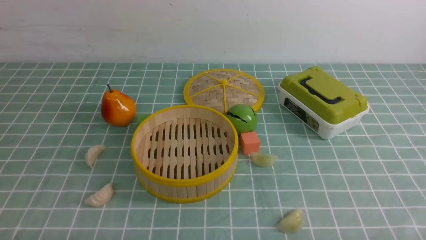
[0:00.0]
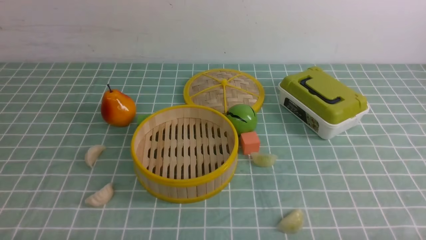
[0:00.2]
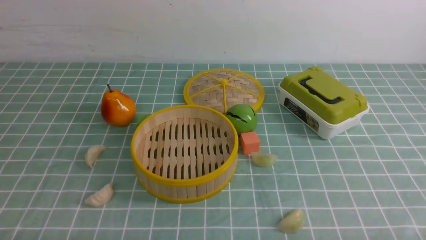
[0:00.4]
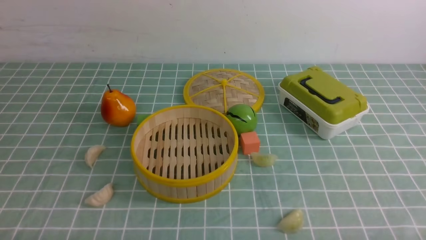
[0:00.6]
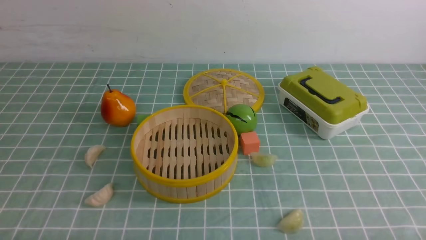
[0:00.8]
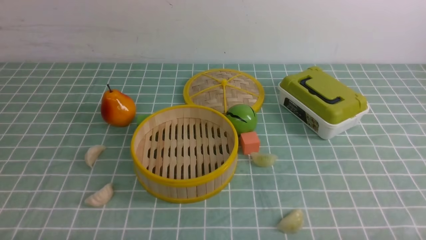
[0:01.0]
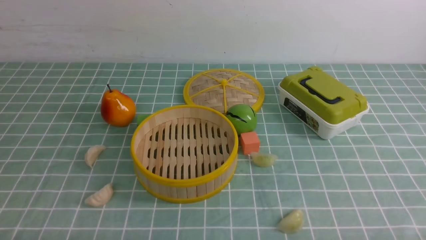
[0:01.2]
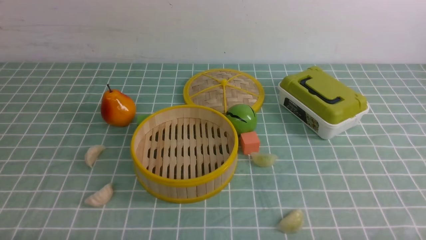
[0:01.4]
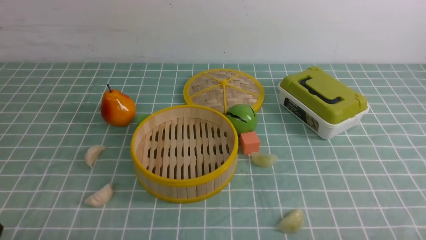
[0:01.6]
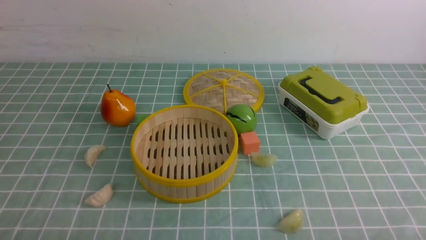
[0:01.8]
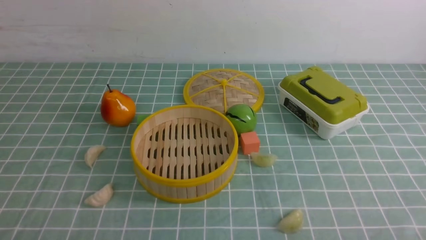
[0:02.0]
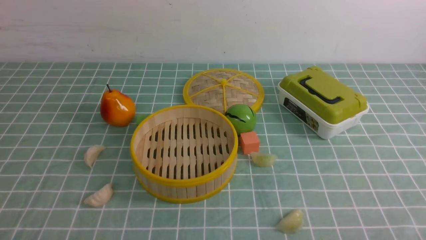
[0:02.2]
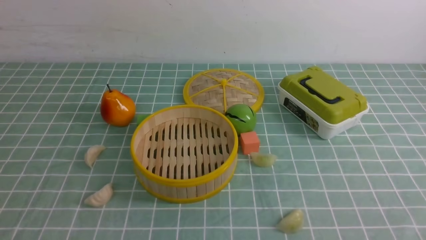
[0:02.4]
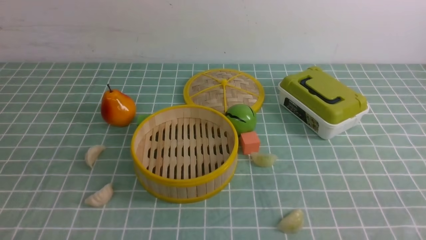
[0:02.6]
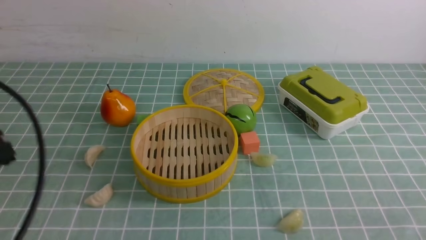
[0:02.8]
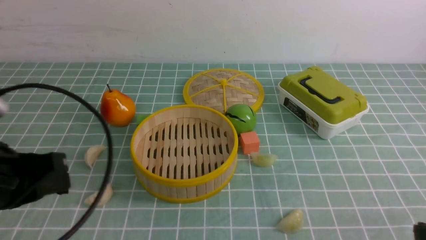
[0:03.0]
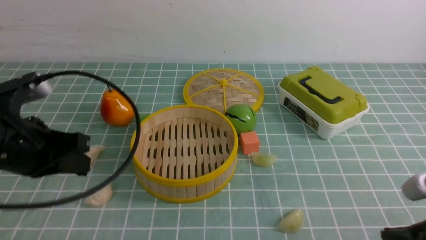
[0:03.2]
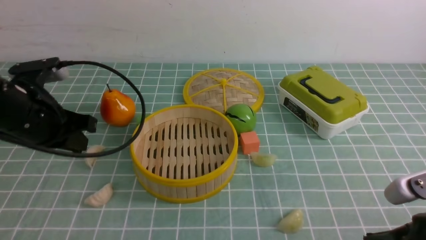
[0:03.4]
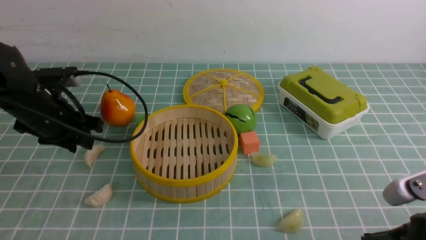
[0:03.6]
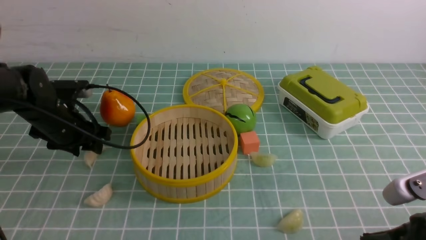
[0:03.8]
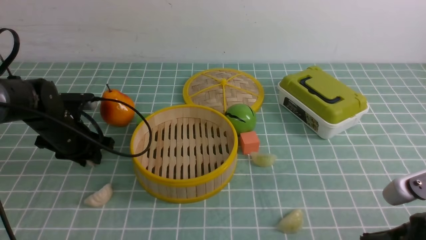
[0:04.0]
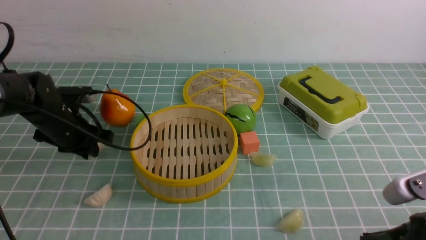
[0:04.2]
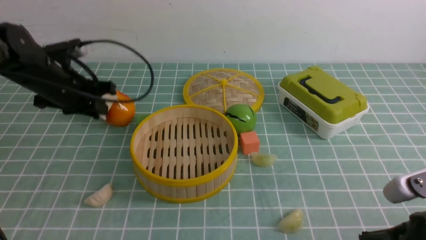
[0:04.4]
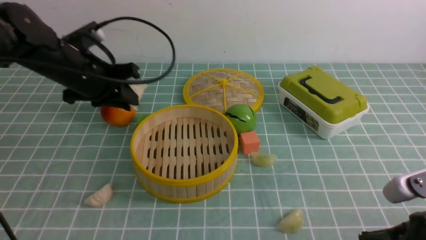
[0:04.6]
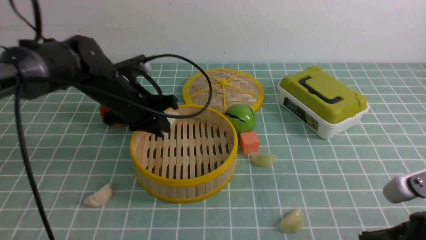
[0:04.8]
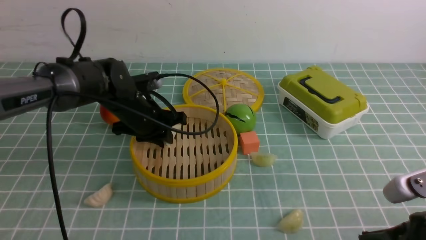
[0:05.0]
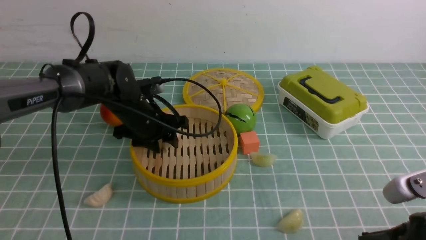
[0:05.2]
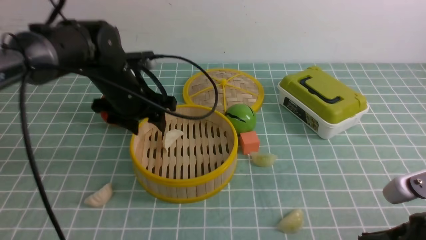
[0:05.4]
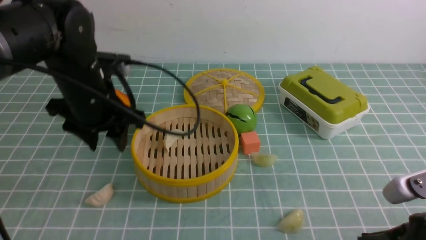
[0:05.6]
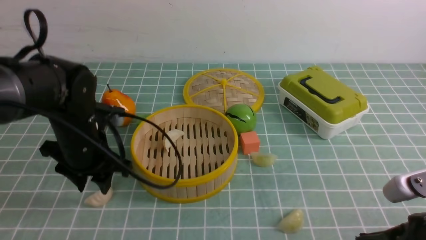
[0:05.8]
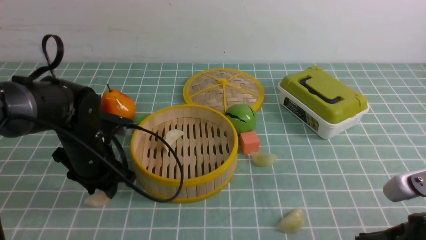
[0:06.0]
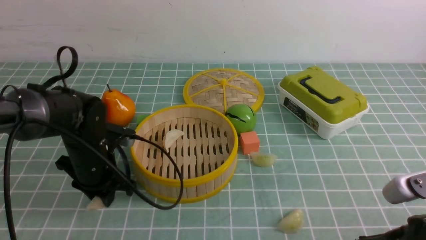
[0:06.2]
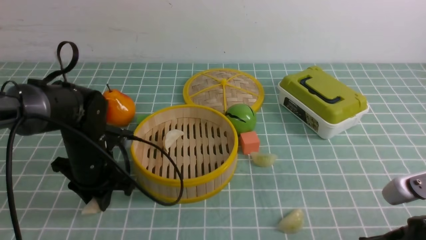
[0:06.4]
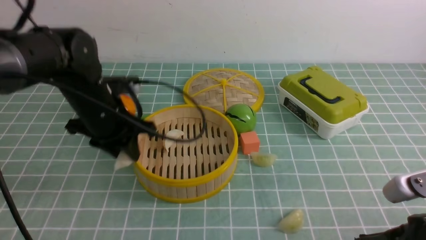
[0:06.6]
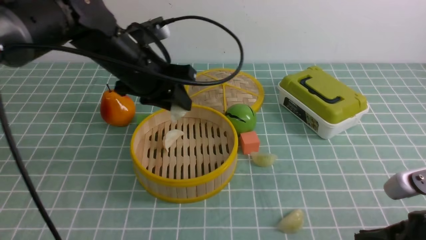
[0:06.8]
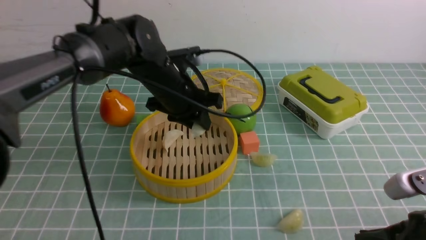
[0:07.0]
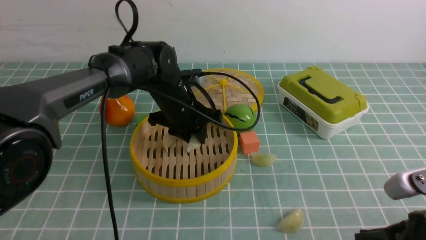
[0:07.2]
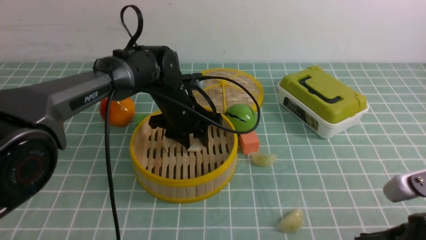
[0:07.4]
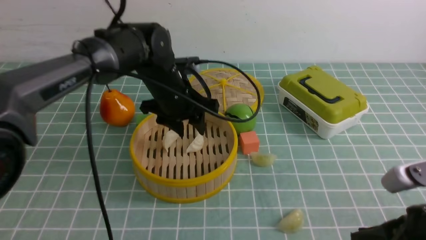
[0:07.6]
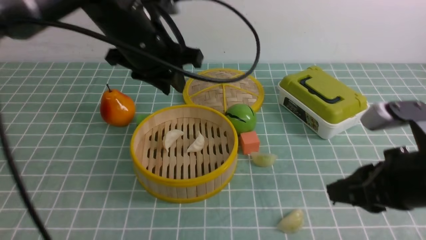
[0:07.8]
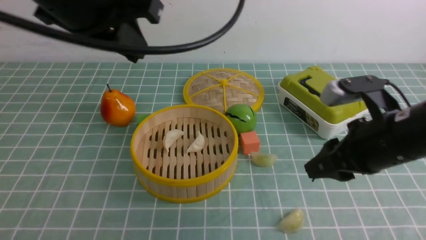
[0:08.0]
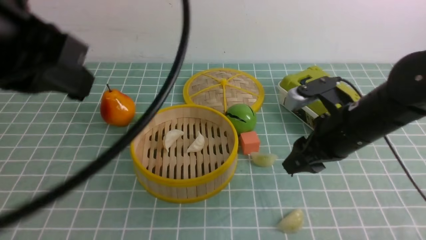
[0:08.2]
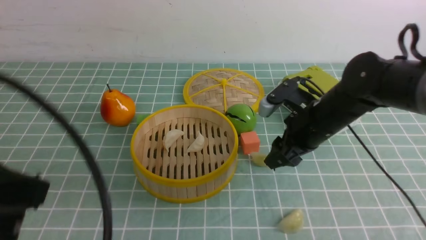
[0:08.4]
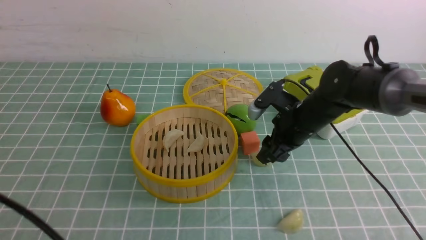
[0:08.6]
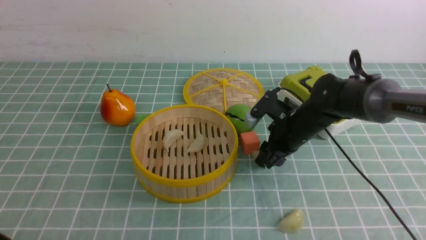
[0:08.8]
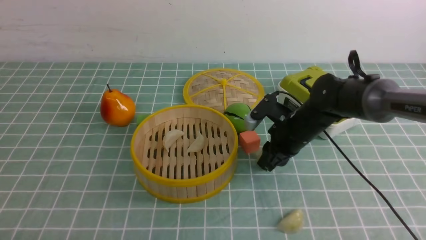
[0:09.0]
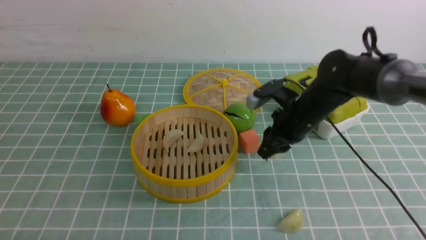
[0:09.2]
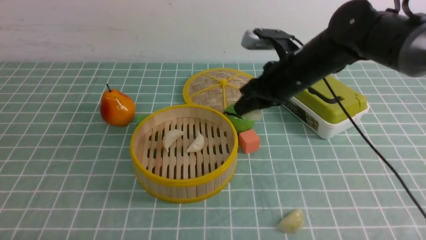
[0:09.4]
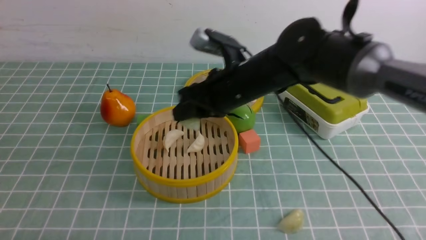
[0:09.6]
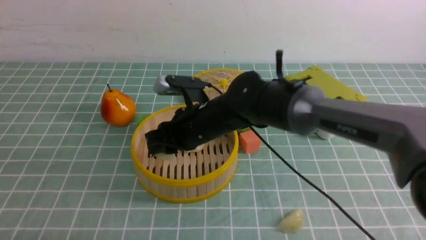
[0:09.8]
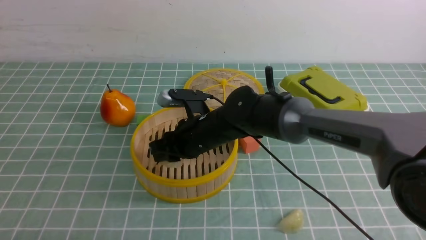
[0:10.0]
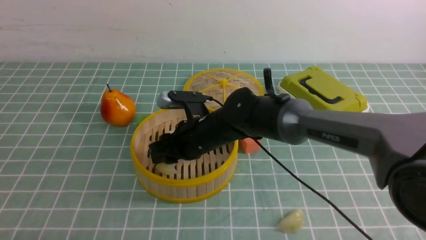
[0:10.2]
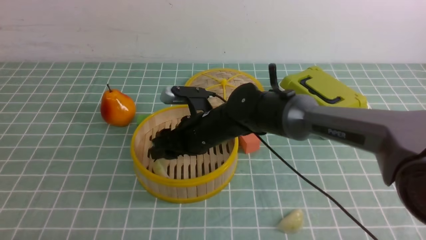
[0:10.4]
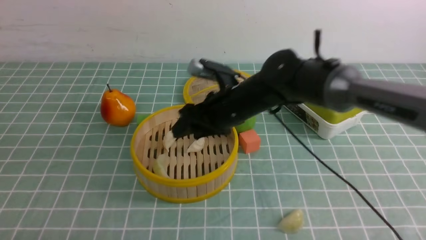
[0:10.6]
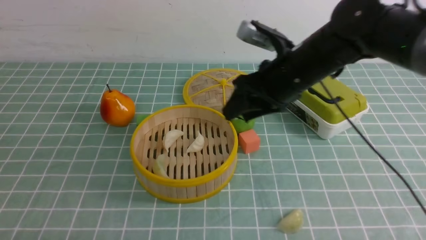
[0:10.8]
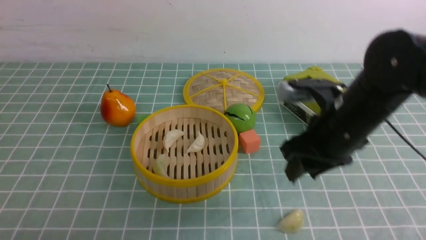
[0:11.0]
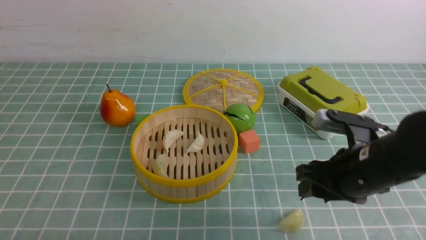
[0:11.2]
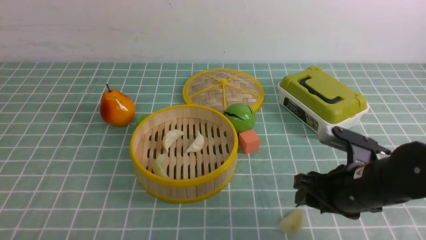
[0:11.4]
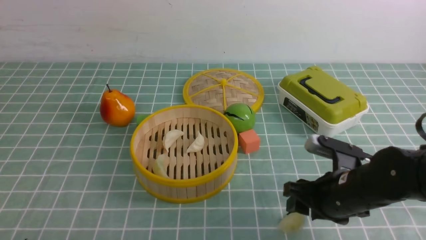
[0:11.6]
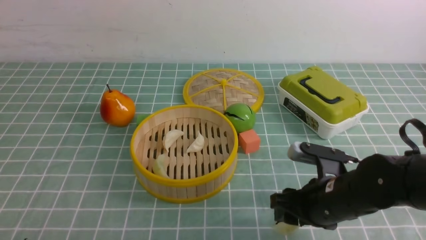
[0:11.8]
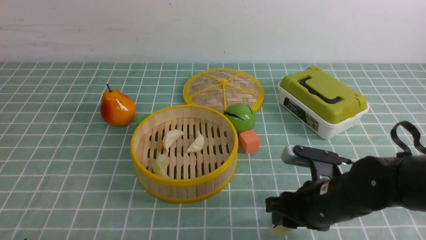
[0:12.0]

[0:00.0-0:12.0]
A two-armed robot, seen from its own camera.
Task of the whole recording: put the dumplings into the steamer on the table with the blue tablecloth.
Step, 0.0 to 4.2 s: use the left arm to grab a dumpling.
Step, 4.4 to 5.2 s: use the left arm to put the dumpling into the steamer.
Step, 5.4 to 6.6 s: use the left arm to grab a dumpling.
Step, 6.8 to 7.6 s: use the left arm to put the dumpling into the steamer.
Step, 8.0 to 9.2 s: use the right arm to grab a dumpling.
Step, 9.6 to 10.6 s: use the right arm to put the dumpling into the steamer.
1.6 to 3.0 s: The left gripper moves forward and upward, roughly 15 cm, and closes up.
3.0 to 4.4 s: The left gripper moves forward, approximately 20 cm, and opens up.
4.4 to 6.0 s: The left gripper heads backward and downward, covering about 10 cm, and opens.
6.0 to 7.6 s: The left gripper goes about 15 cm to the right, upward and forward.
7.6 to 9.0 s: The left gripper moves backward and to the left, roughly 35 cm, and closes. Meanwhile the right gripper goes approximately 25 cm forward, and opens, then closes once more.
9.0 to 10.4 s: The right gripper is displaced to the left by approximately 15 cm, and opens its fingers.
10.4 to 12.0 s: The right gripper goes about 20 cm to the right and backward.

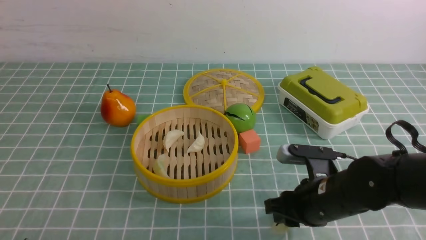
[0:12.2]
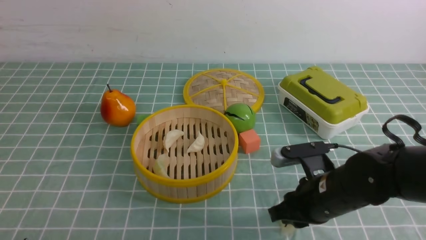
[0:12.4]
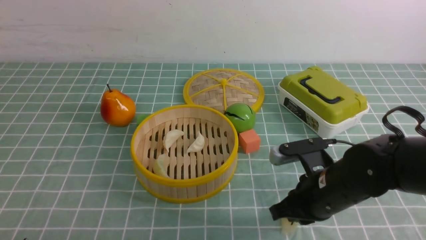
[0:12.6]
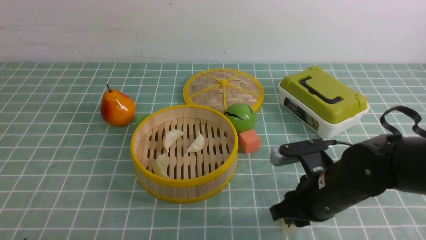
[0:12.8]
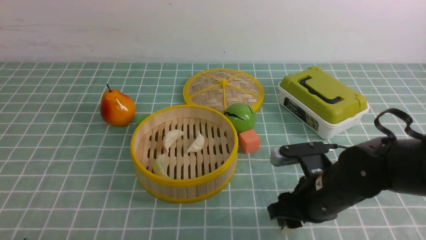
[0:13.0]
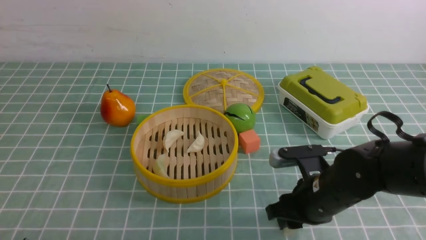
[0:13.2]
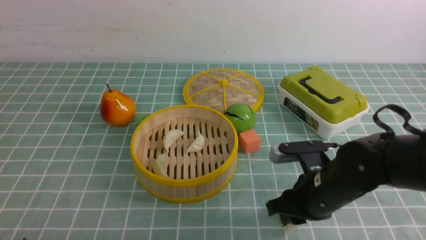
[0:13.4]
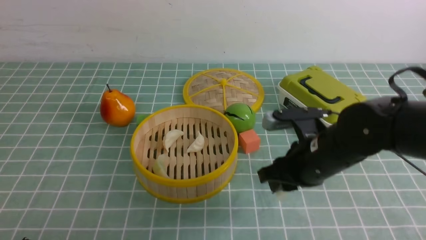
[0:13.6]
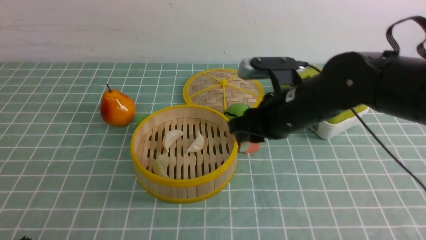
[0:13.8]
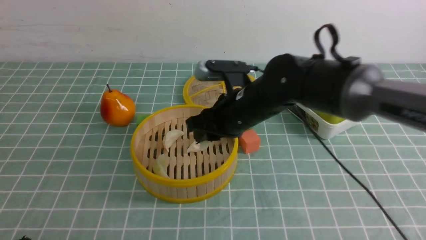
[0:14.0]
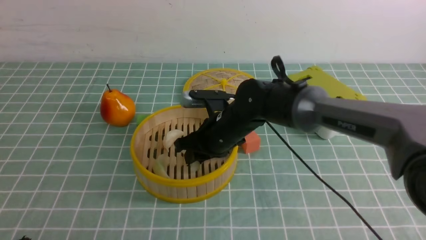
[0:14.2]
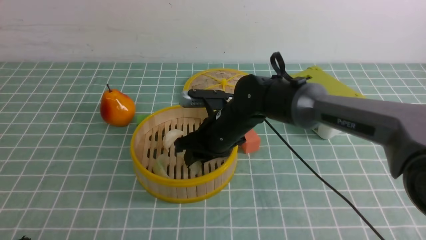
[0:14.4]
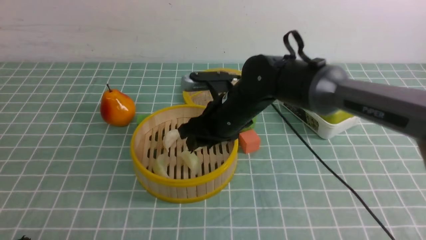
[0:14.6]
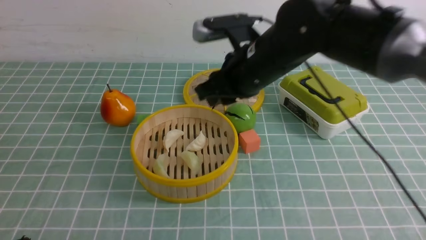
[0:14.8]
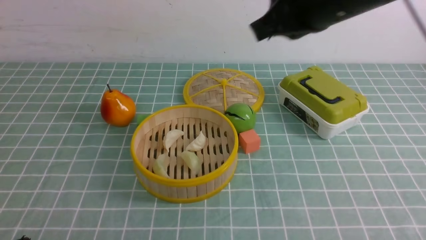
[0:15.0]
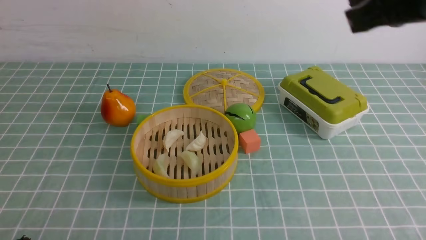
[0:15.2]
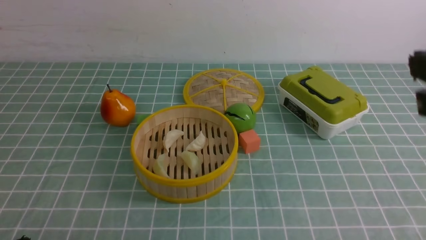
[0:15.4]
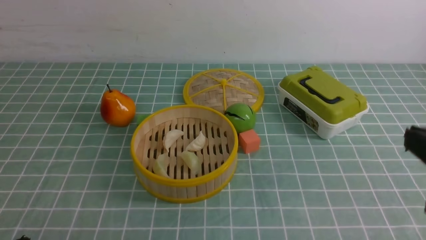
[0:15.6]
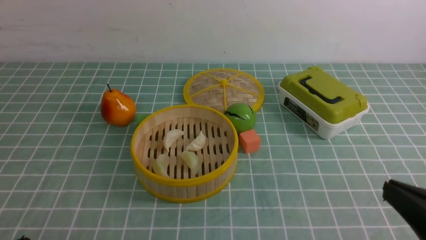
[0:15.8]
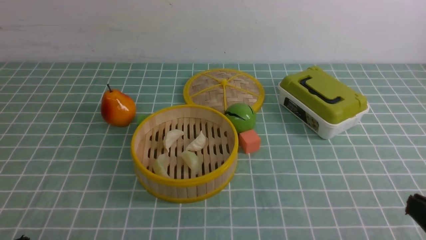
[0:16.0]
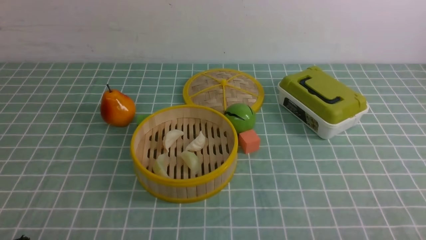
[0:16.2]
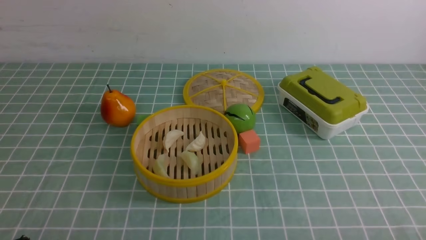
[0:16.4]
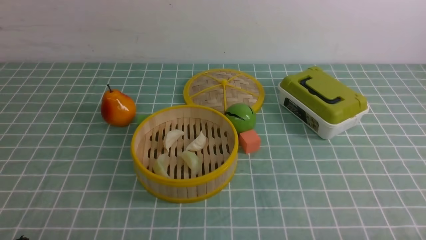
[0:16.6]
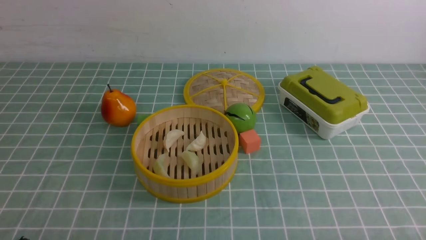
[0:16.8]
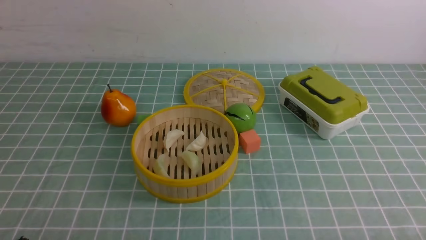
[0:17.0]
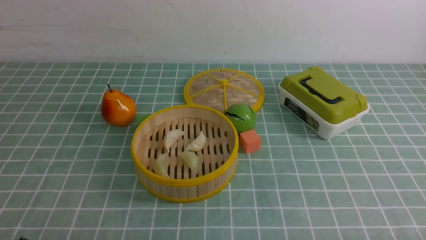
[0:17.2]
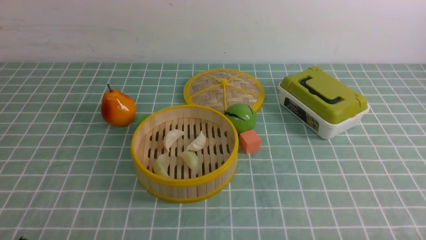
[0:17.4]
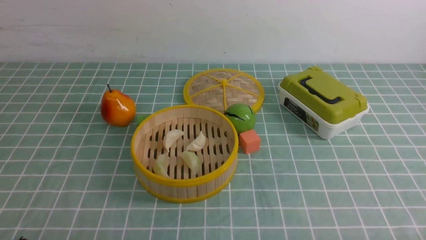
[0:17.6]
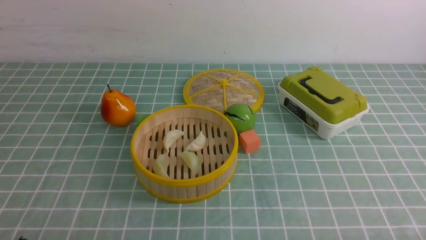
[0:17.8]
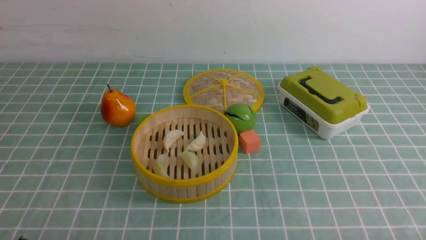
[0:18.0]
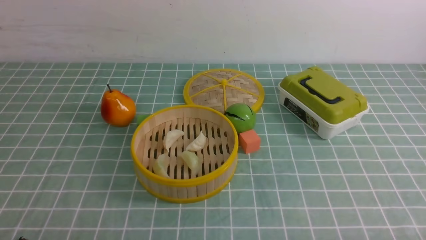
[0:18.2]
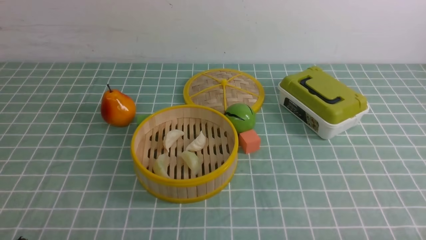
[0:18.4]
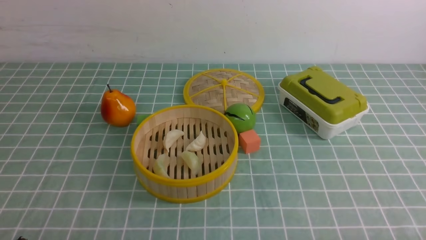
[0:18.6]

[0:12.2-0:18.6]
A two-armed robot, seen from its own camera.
Task of the whole recording: put the dumplings into the steamer on the table with the blue tablecloth.
Step, 14.0 to 14.6 s: use the right arm to put the dumpling into the steamer.
12.2 to 13.8 s: The right gripper goes some 15 cm upward, forward and to the left.
13.8 to 15.4 s: The right gripper moves up and down over approximately 25 cm, changing direction 2 times, and closes its fingers.
15.4 to 17.0 s: The right gripper goes about 25 cm downward and backward.
